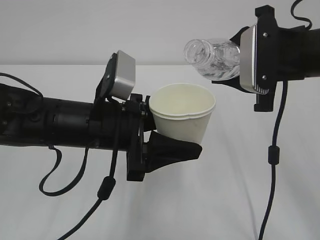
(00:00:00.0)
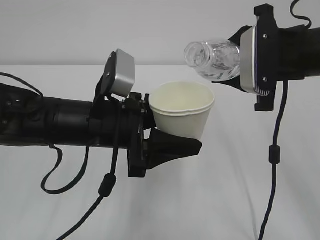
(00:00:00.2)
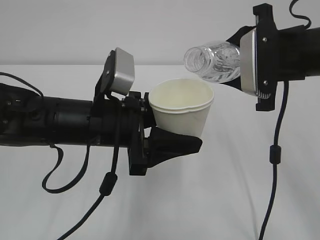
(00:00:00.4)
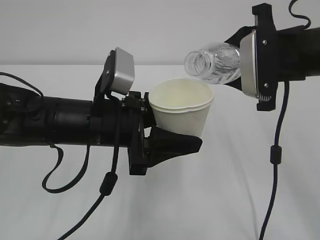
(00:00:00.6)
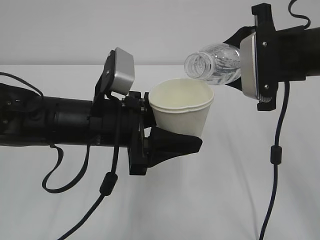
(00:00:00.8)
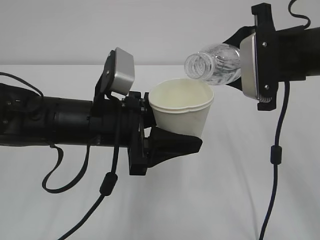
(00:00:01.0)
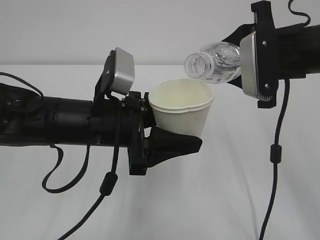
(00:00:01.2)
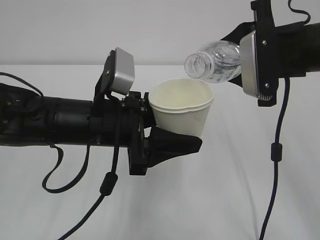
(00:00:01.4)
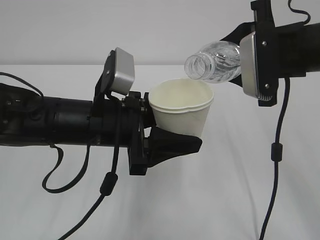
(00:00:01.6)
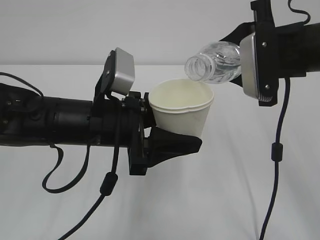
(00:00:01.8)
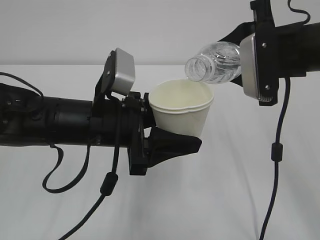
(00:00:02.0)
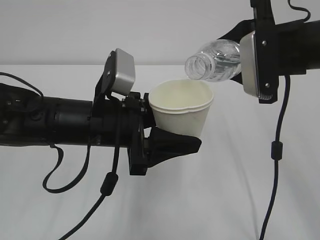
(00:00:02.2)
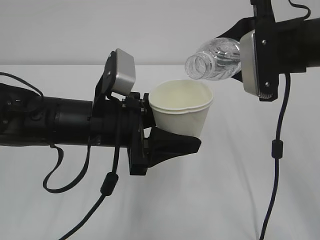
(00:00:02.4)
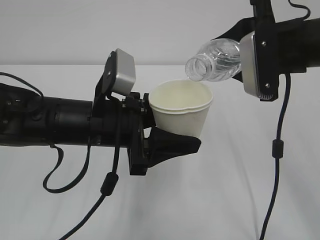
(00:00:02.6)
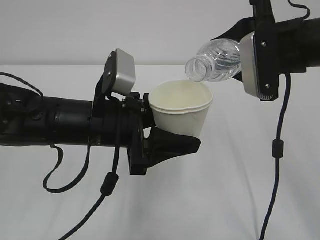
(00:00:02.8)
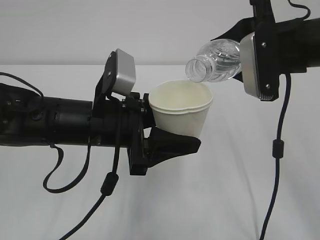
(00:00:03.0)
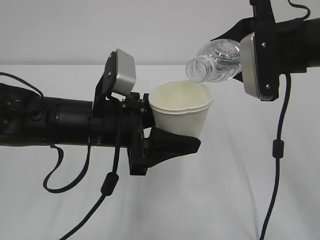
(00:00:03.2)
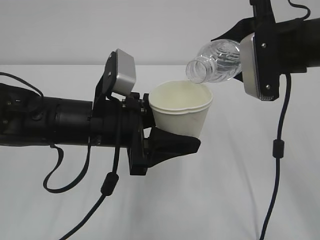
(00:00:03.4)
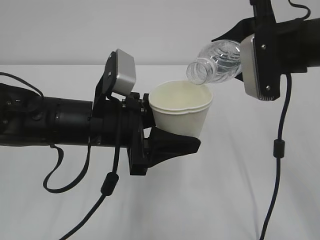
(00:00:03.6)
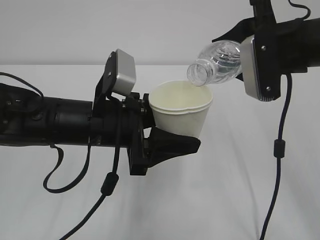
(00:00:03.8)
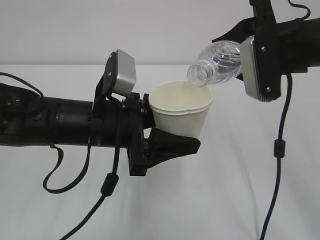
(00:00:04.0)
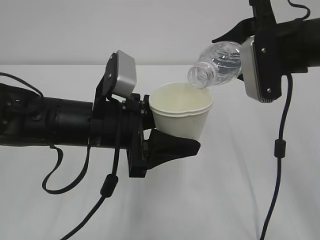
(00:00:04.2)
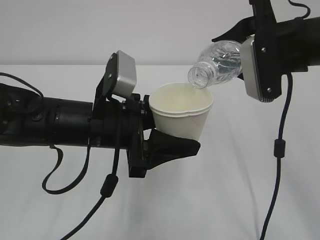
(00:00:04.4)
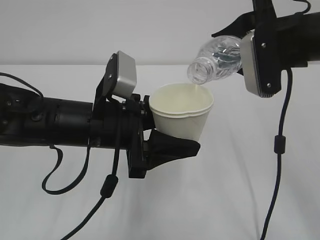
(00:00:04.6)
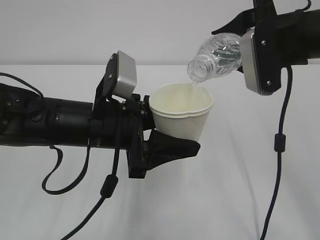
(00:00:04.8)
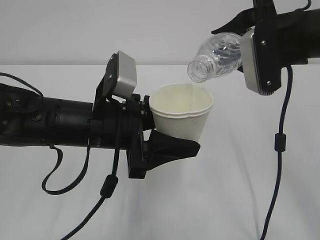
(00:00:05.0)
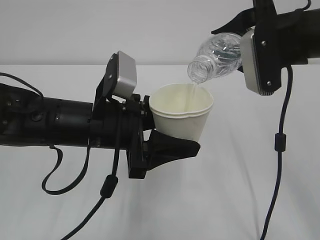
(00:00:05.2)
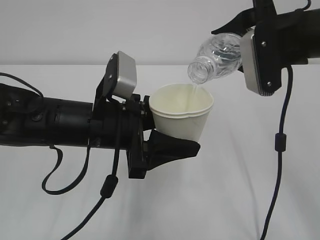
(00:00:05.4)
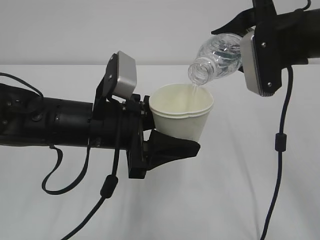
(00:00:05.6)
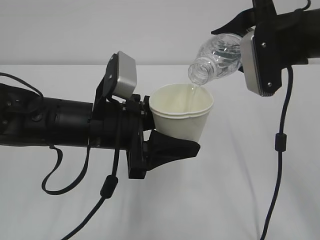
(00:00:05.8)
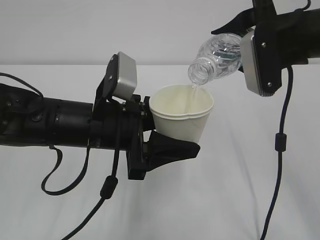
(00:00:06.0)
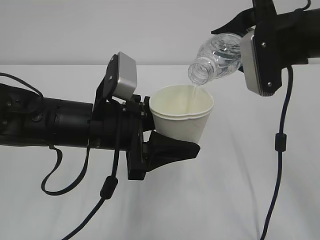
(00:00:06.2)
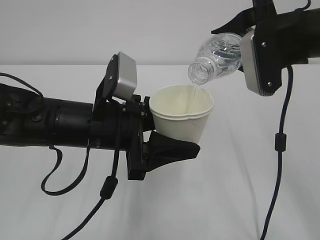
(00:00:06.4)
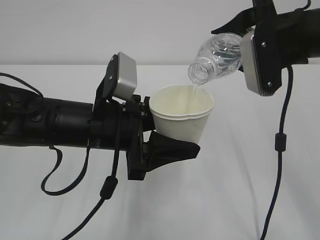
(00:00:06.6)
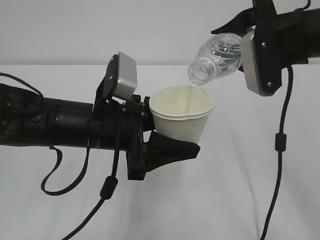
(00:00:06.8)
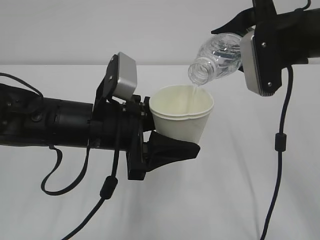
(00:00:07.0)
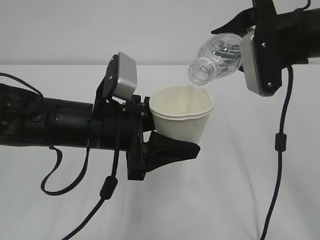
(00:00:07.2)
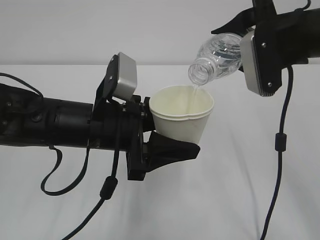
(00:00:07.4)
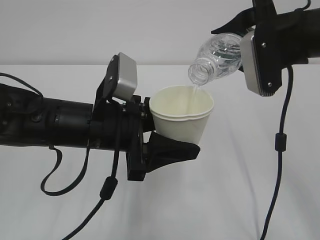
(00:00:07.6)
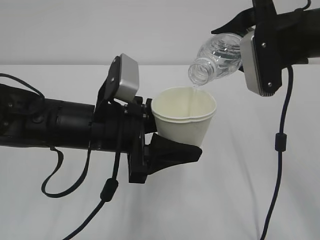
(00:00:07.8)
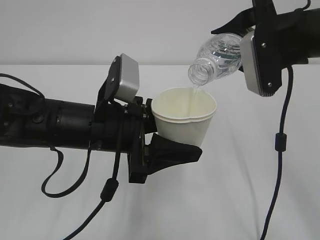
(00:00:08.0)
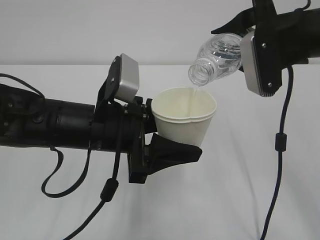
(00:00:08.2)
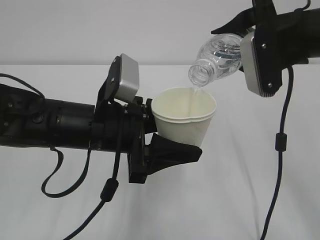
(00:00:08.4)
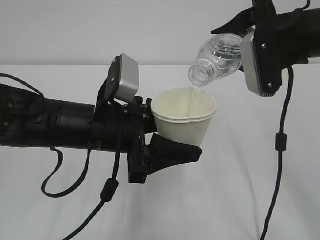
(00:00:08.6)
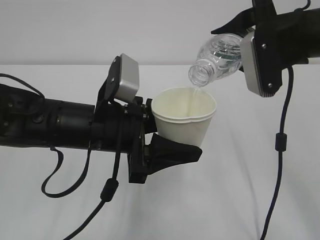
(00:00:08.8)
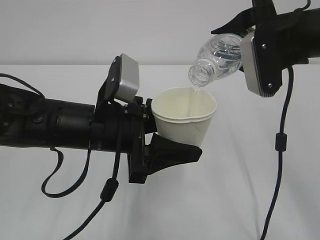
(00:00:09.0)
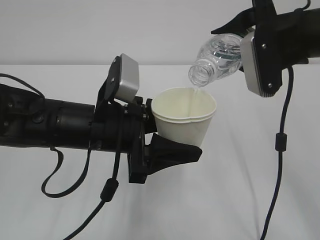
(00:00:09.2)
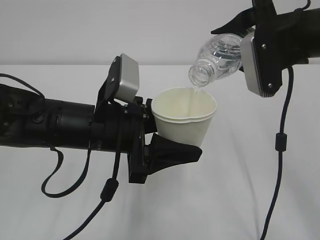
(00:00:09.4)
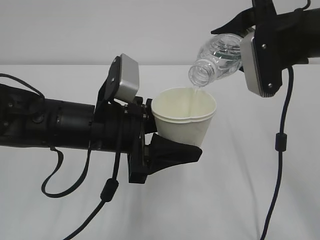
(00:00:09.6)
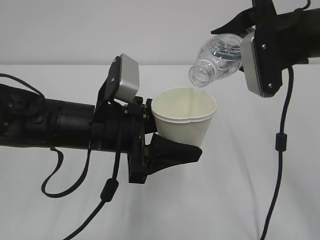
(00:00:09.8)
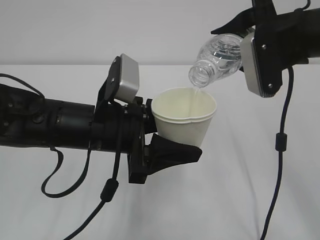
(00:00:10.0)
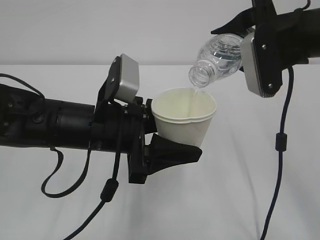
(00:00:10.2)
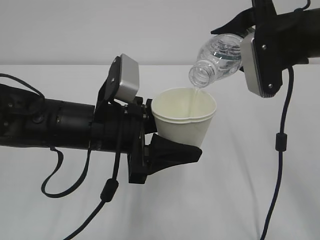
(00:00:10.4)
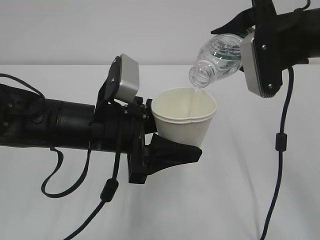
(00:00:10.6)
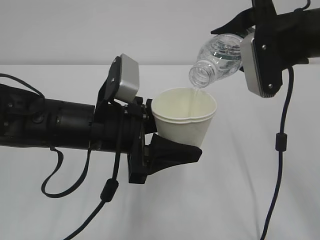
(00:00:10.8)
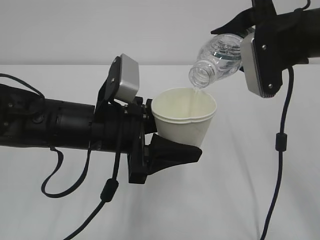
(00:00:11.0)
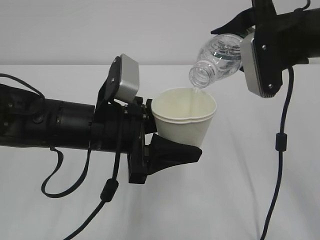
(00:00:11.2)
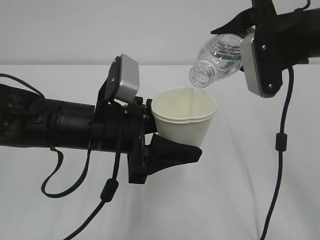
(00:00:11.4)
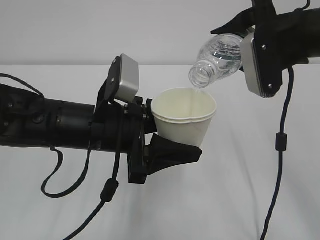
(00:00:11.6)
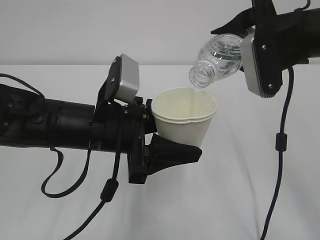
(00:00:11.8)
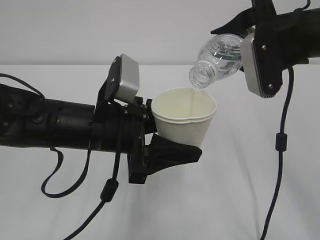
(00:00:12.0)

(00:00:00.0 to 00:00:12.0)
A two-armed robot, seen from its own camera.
00:00:00.0 - 00:00:03.0: The grippers stay close to where they were, moving slightly.
00:00:03.0 - 00:00:04.4: There are only small adjustments of the grippers.
00:00:04.4 - 00:00:09.0: The two grippers keep their place.
00:00:09.0 - 00:00:12.0: Neither gripper changes place.

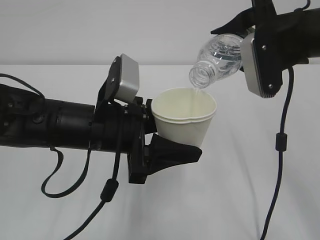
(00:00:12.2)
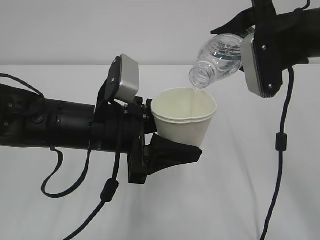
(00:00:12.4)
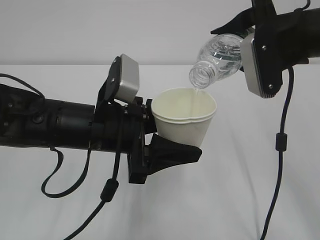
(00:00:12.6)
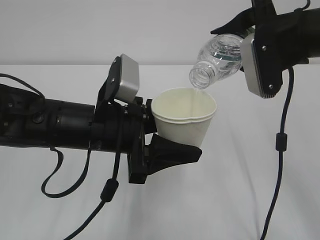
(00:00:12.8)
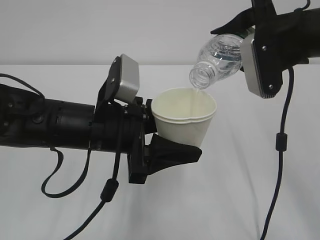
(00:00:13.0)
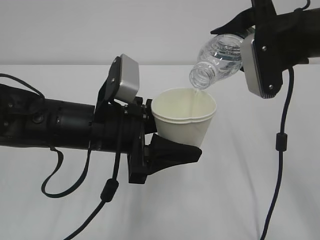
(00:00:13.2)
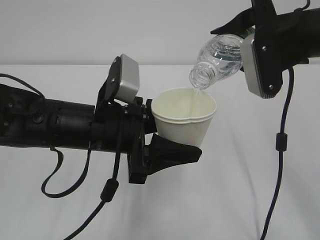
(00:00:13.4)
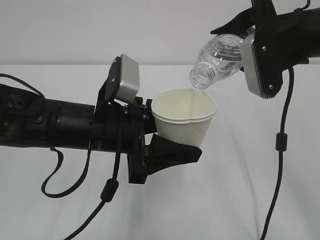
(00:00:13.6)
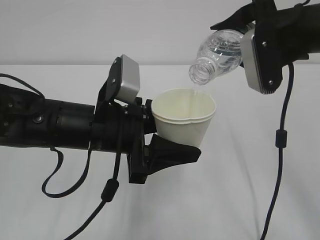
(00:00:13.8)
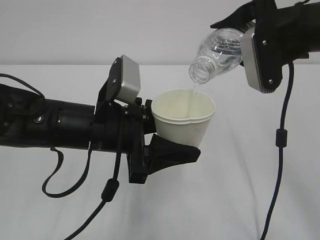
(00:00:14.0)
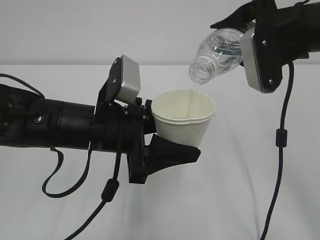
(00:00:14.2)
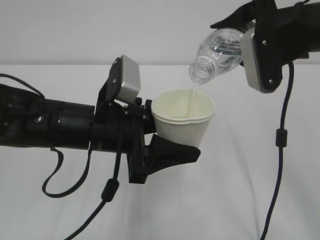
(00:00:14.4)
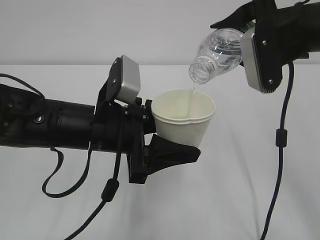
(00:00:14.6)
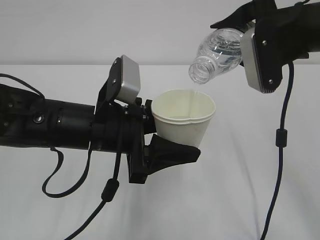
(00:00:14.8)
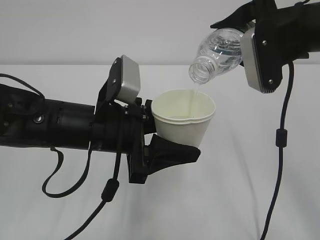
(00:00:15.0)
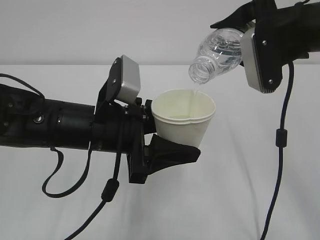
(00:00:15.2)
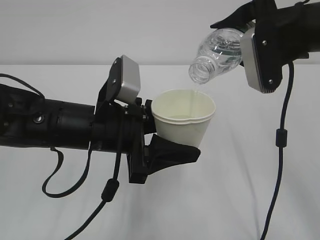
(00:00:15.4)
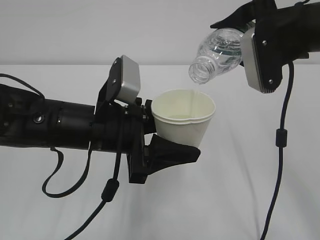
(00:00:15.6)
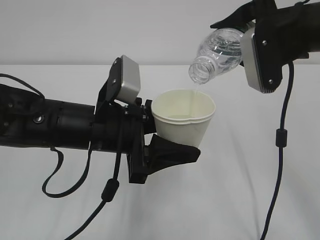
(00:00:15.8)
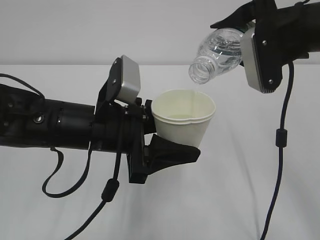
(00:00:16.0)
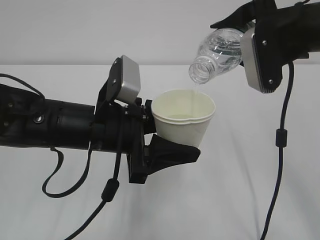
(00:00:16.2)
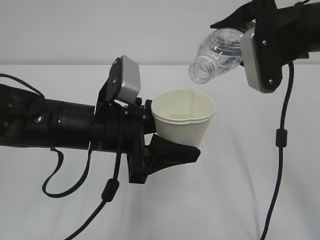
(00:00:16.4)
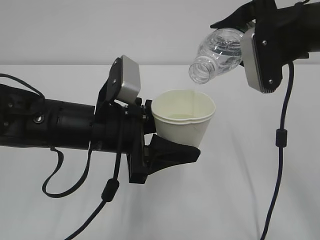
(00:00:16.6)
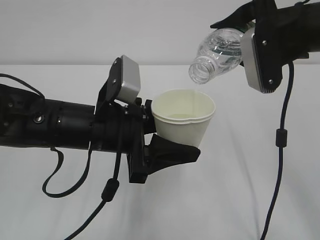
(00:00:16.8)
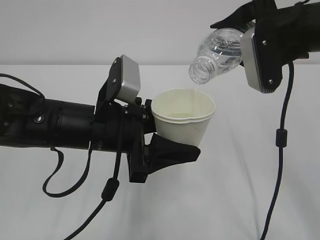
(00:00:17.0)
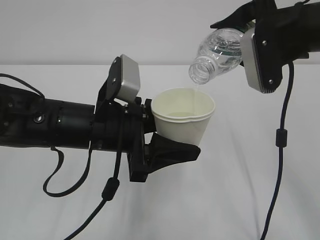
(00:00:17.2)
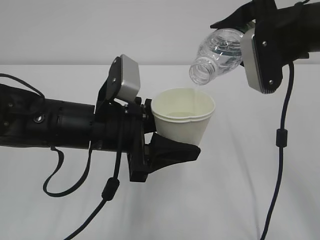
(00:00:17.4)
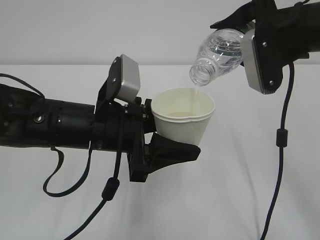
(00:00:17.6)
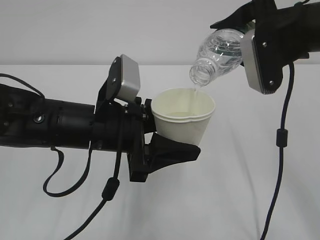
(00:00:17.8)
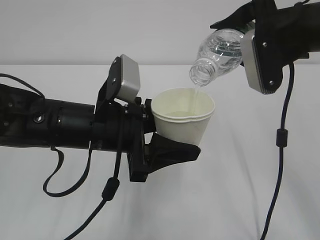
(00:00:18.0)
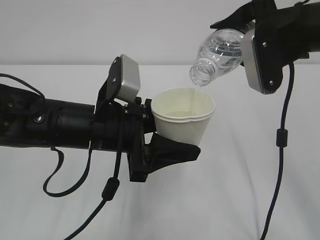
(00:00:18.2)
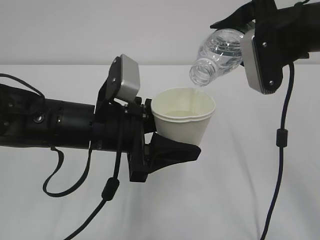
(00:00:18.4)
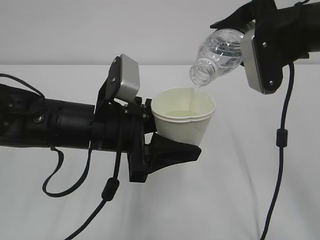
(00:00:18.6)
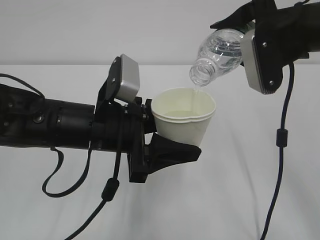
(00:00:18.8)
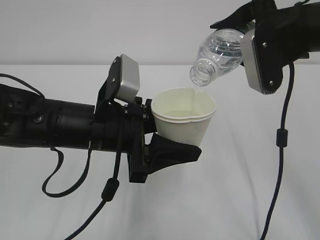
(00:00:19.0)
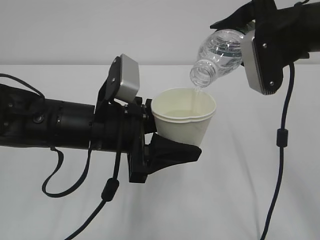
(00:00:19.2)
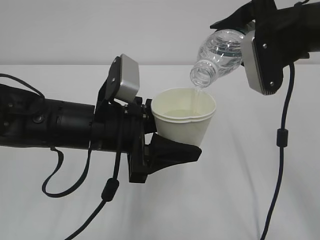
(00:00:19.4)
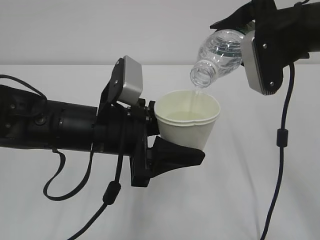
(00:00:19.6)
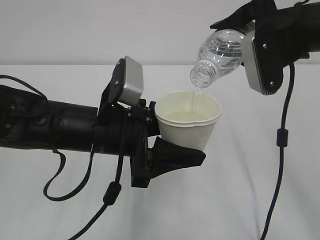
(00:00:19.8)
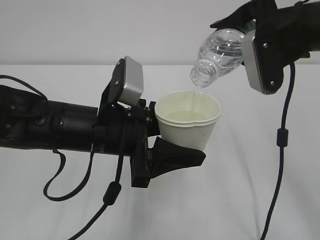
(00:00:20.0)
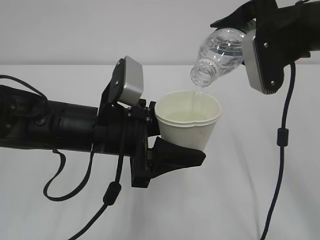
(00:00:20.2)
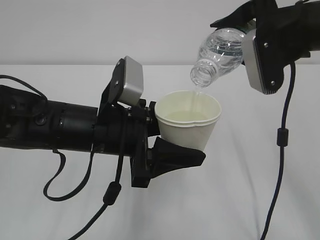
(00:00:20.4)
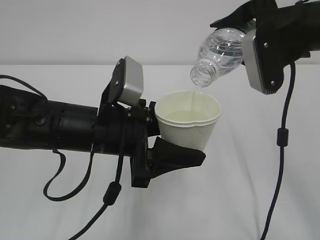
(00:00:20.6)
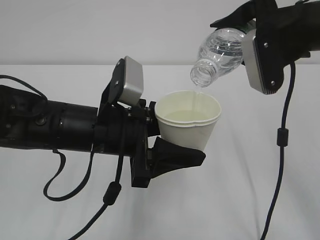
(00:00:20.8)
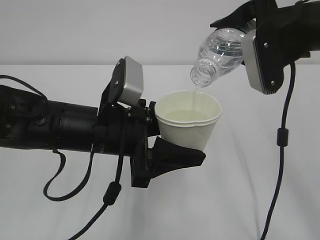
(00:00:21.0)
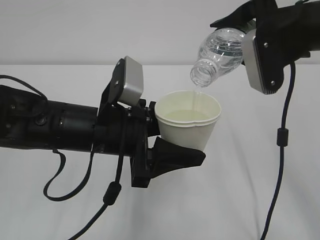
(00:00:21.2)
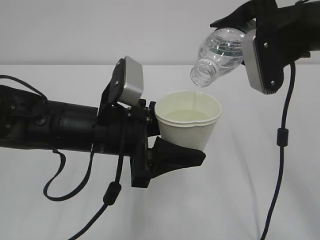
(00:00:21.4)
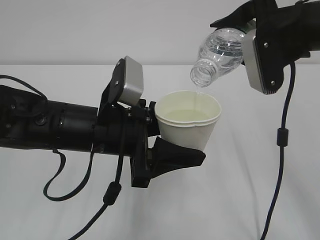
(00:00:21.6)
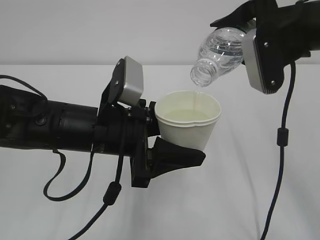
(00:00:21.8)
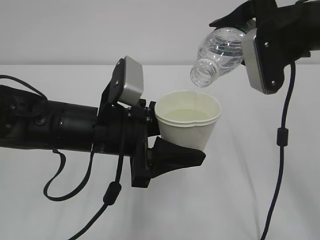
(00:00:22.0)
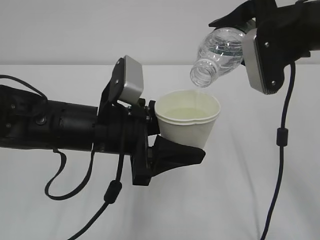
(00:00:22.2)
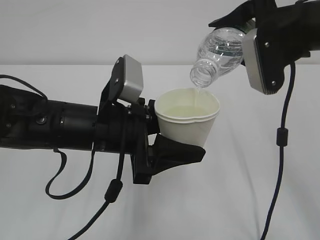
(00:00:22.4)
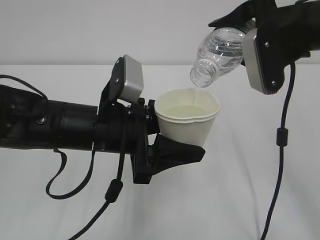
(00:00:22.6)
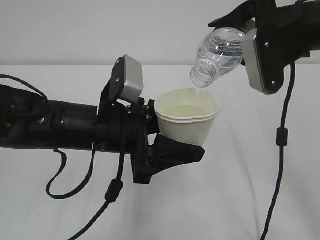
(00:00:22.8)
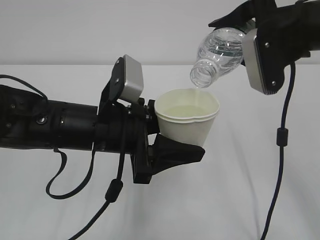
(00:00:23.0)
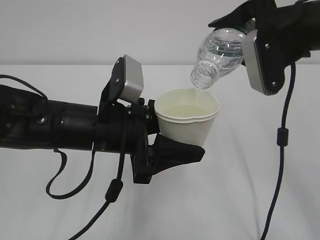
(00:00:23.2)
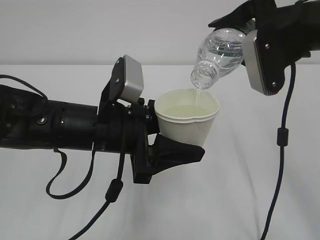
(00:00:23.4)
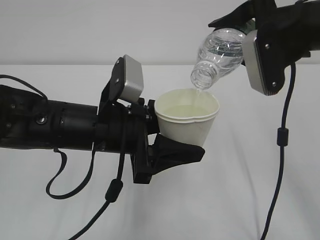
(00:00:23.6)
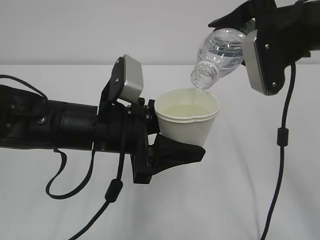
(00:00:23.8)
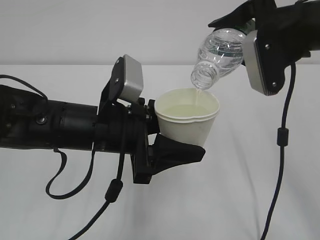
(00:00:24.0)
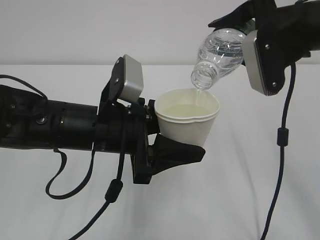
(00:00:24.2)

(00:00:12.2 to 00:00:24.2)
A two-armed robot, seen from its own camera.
00:00:12.2 - 00:00:22.6: The two grippers keep their place.
00:00:22.6 - 00:00:24.2: The two grippers keep their place.
